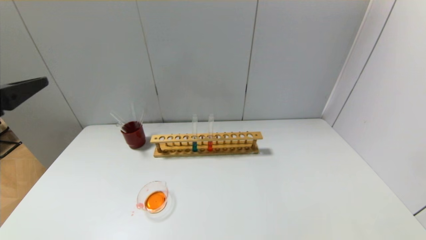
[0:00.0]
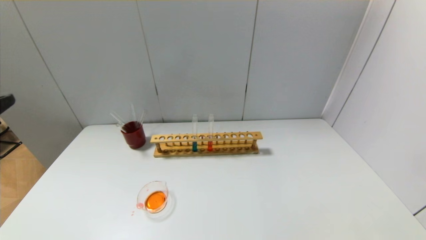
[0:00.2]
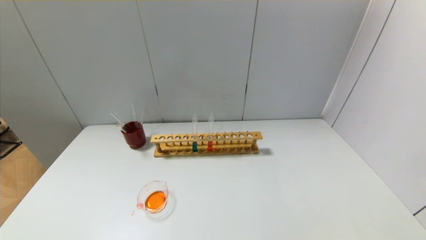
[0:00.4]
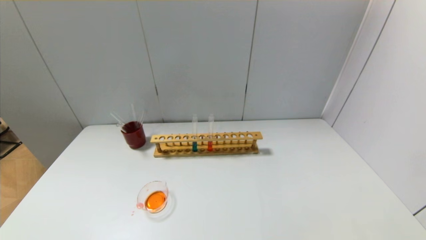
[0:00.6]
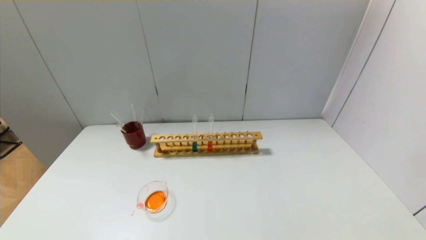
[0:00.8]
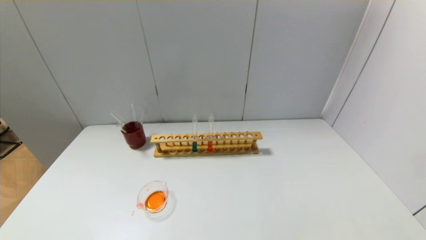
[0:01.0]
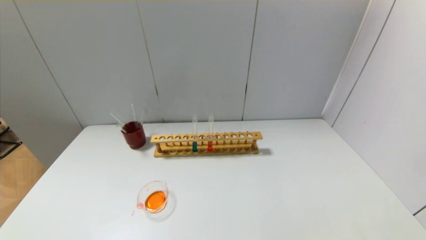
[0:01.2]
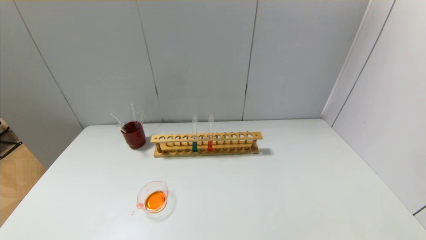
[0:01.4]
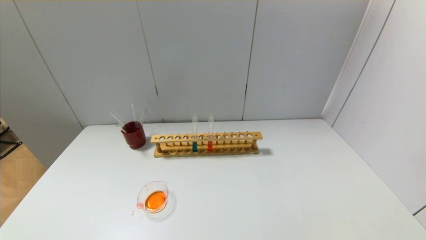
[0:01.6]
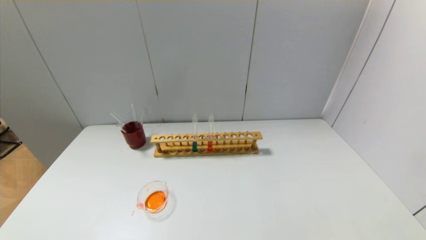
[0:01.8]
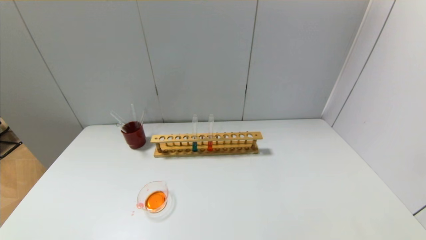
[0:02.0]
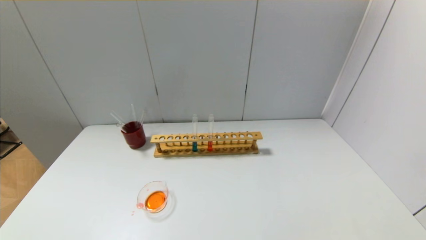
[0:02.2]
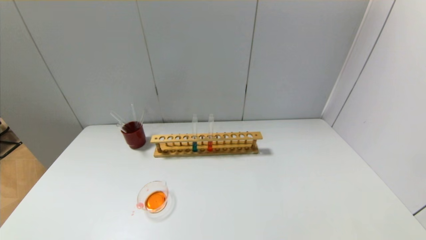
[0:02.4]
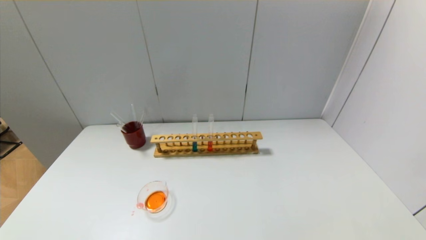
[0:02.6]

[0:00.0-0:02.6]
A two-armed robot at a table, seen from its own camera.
0:00.0 to 0:01.2: The left gripper shifts about 20 cm backward and downward.

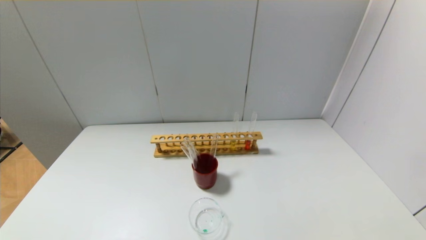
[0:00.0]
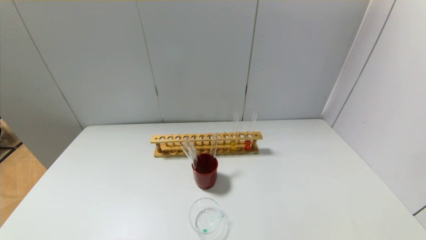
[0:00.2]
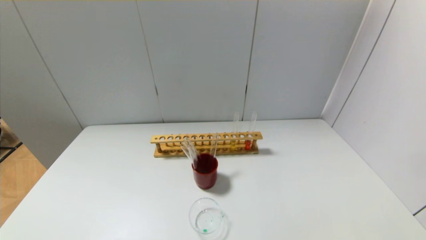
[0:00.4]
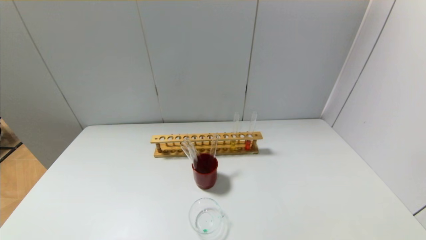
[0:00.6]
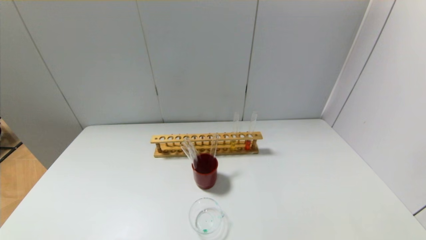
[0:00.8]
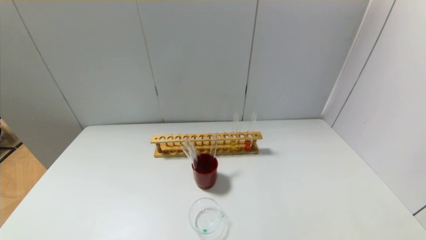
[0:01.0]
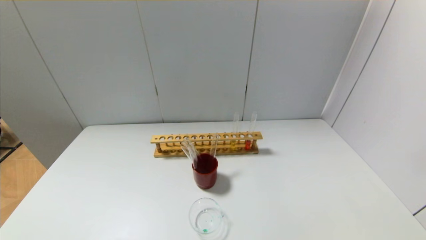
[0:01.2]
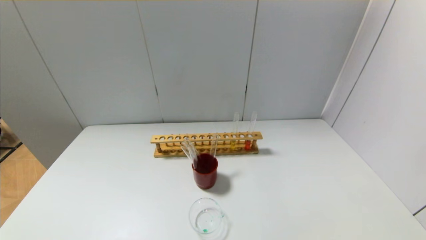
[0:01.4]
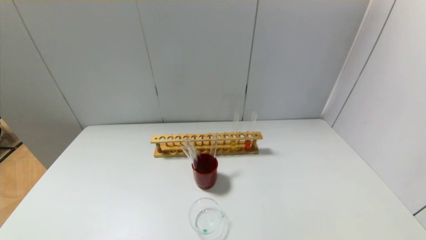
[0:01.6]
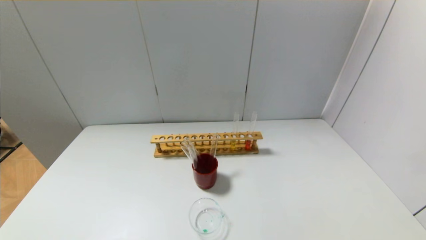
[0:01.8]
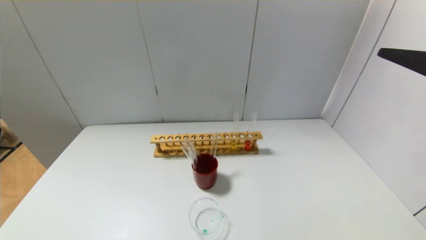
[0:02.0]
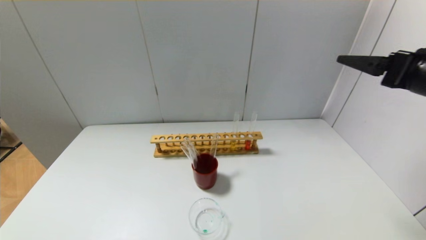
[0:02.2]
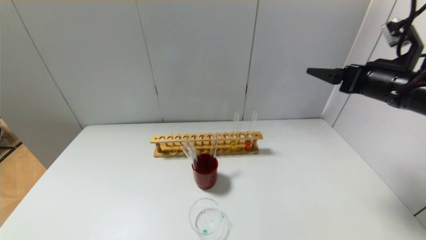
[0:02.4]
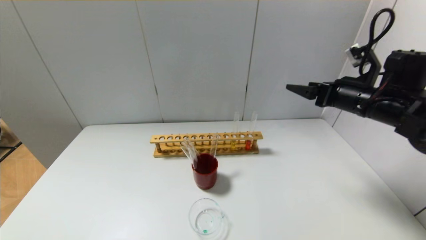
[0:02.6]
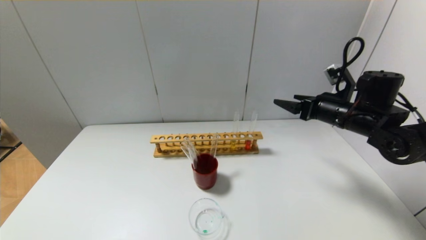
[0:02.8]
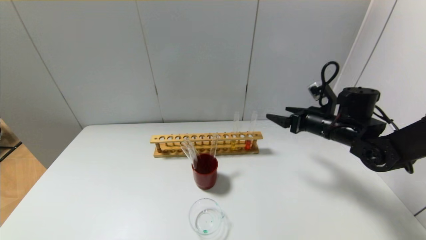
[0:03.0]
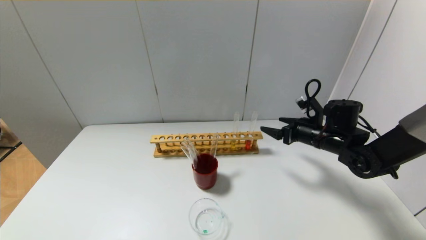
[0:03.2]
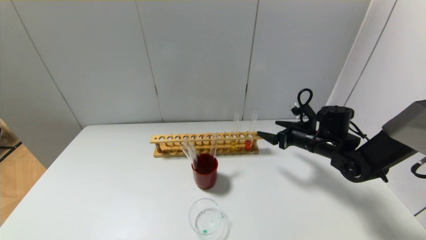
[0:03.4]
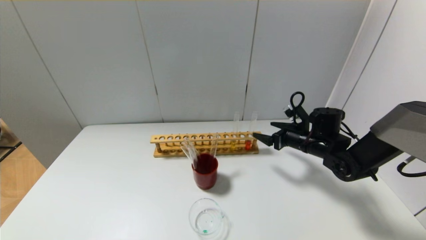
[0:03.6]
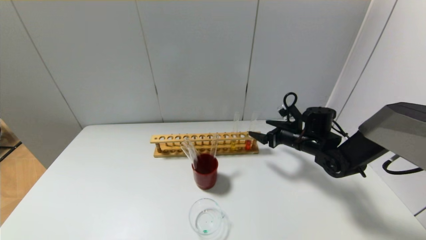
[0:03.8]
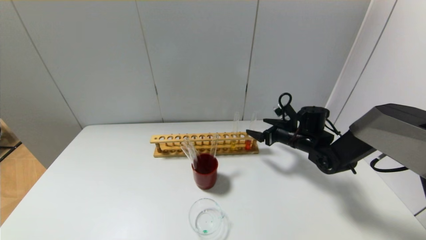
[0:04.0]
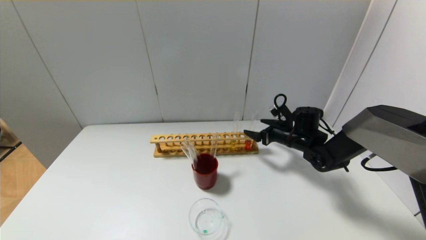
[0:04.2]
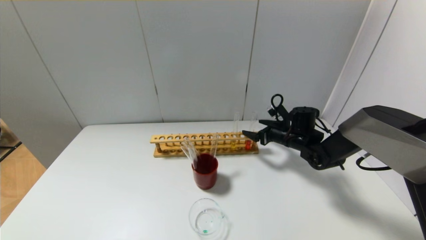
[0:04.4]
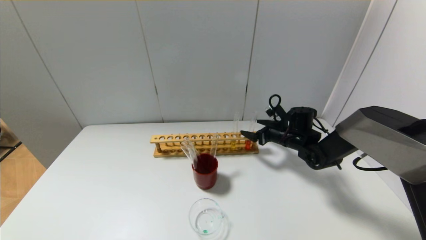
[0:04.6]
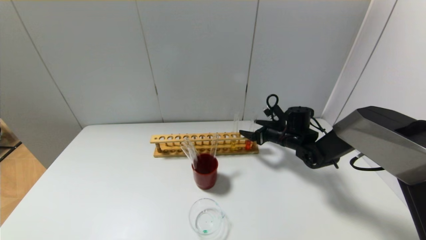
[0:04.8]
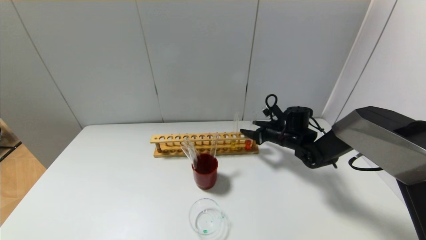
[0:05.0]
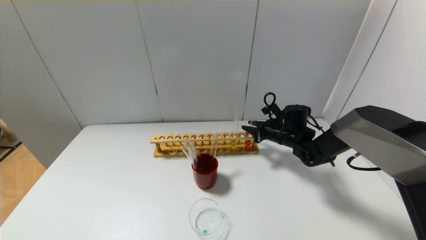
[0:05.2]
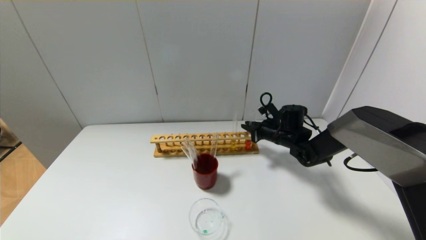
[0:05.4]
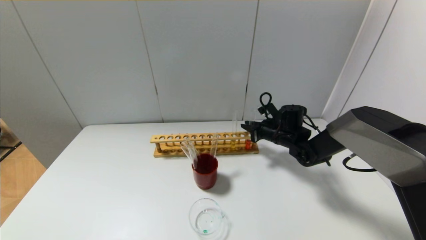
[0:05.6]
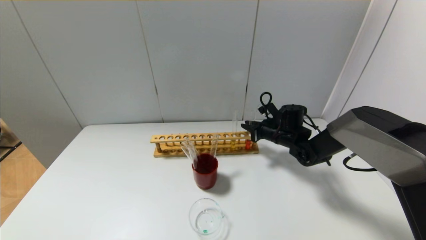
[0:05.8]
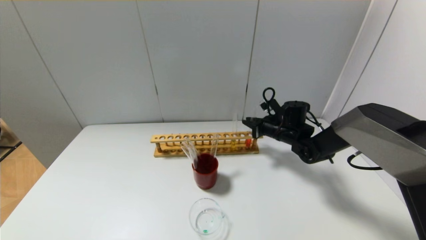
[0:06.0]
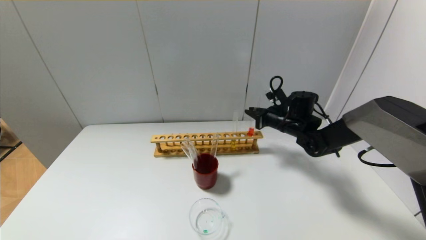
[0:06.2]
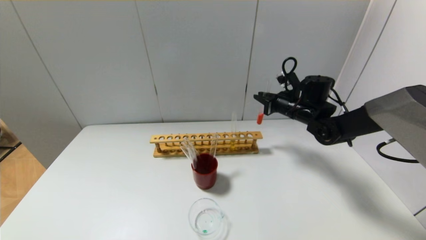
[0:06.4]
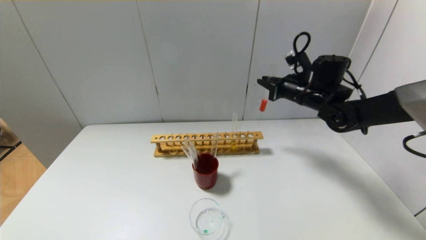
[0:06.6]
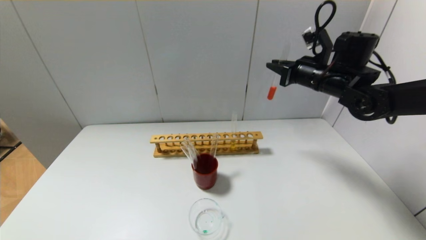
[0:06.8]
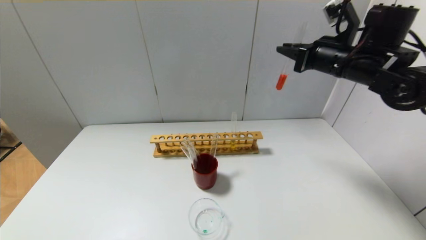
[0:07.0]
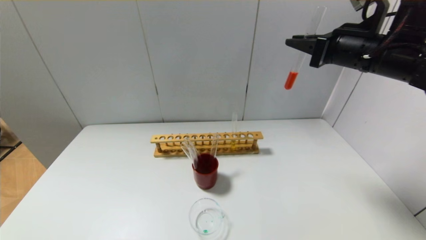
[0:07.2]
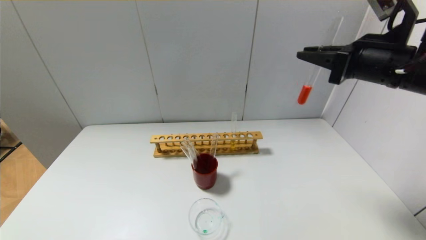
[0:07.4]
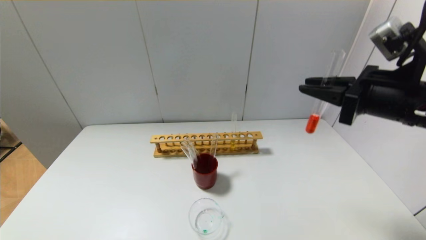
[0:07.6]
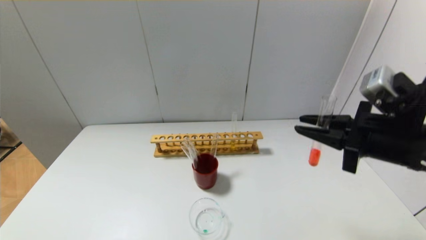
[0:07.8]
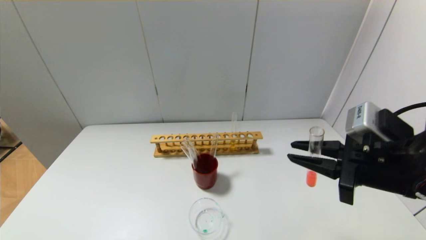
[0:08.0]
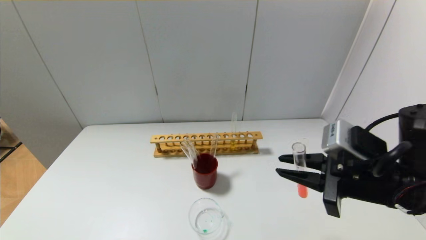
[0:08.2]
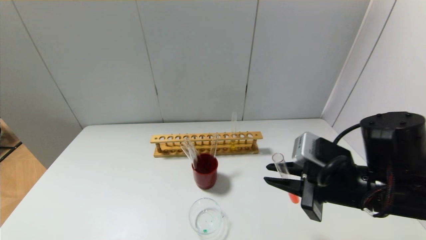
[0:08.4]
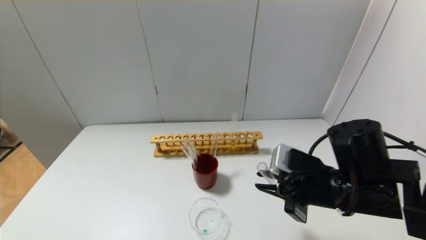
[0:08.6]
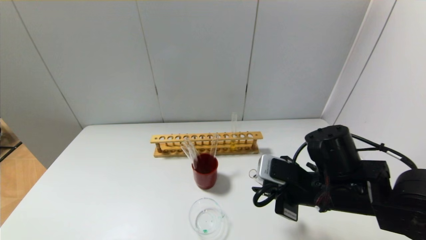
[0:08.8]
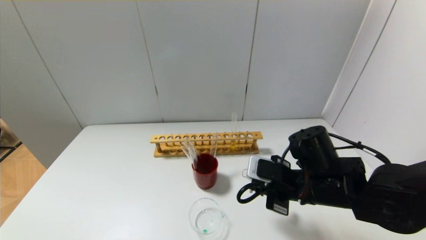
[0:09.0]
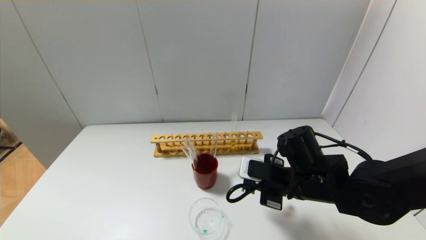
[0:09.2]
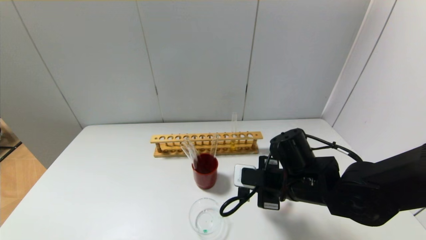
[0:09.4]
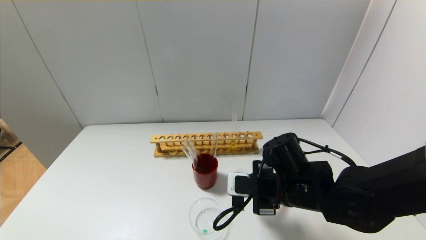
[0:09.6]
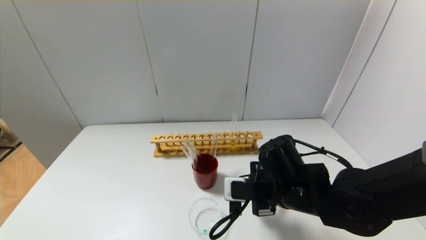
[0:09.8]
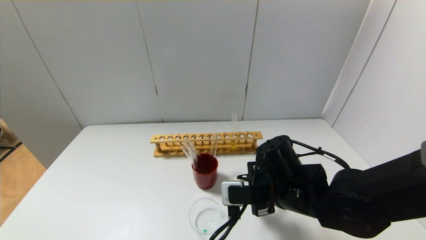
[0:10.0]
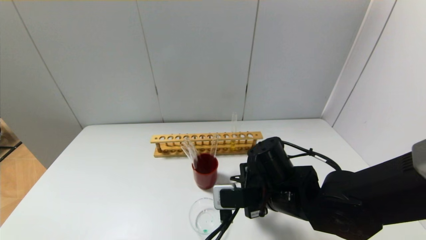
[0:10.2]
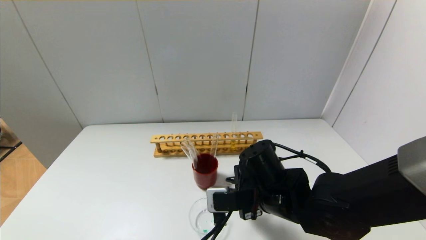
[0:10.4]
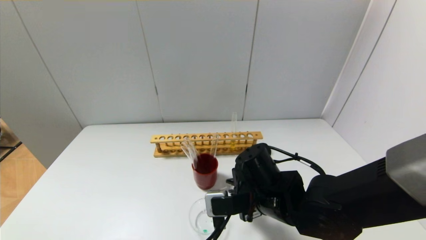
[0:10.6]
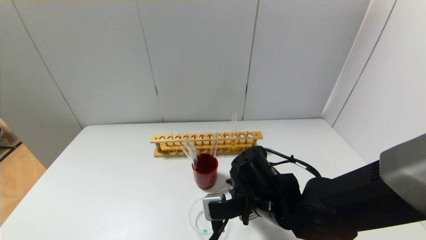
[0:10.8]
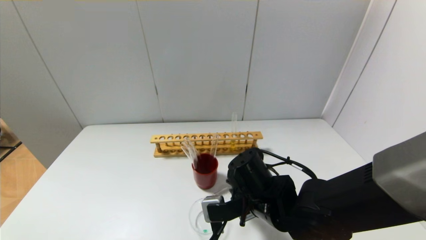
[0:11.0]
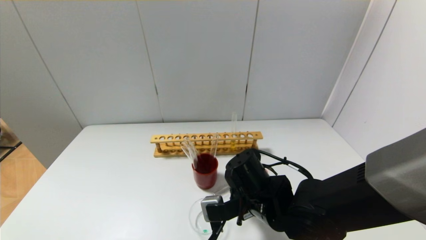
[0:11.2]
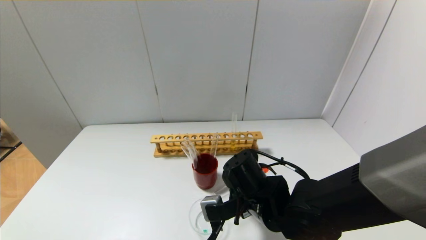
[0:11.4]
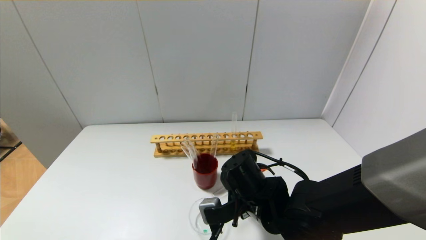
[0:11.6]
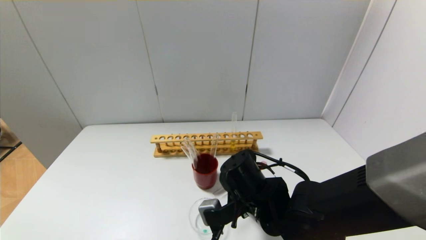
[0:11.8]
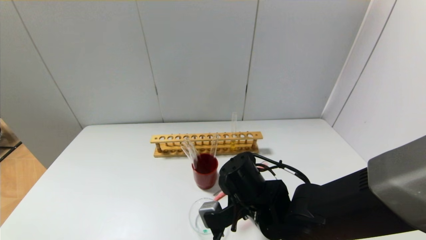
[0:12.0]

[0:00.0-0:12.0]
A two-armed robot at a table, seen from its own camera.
Step, 0:00.0 to 0:05.4: Grasp the red reagent with the right gripper.
0:01.6 to 0:03.0: The right gripper travels forward and downward by approximately 35 cm.
0:03.0 to 0:04.4: The right gripper goes some 10 cm downward and forward.
0:04.4 to 0:06.0: The right gripper closes up.
0:06.0 to 0:07.6: The right gripper moves backward and upward, approximately 30 cm.
0:07.6 to 0:09.0: The right gripper shifts about 20 cm downward and to the left.
0:09.0 to 0:10.4: The right gripper goes roughly 5 cm to the left.

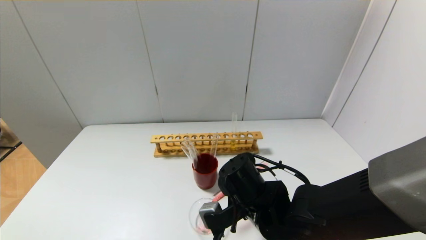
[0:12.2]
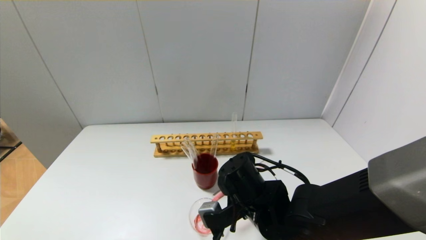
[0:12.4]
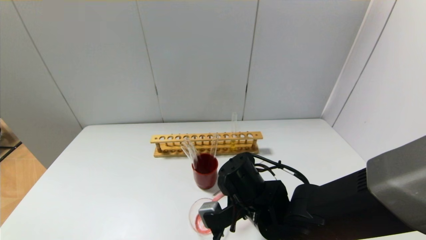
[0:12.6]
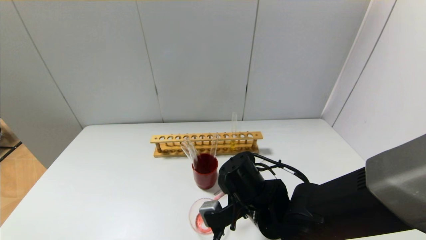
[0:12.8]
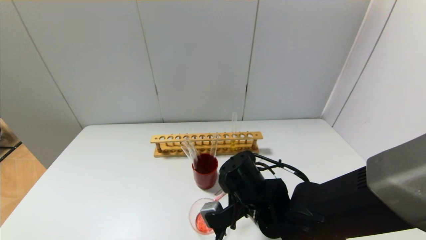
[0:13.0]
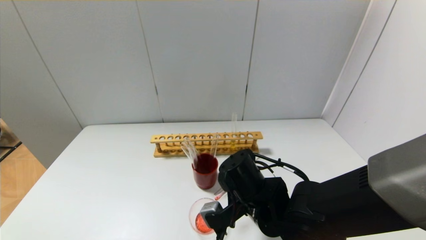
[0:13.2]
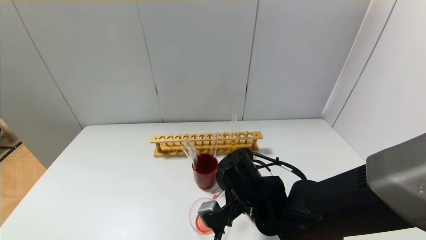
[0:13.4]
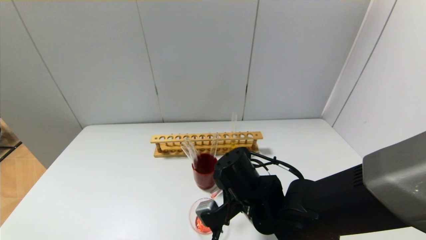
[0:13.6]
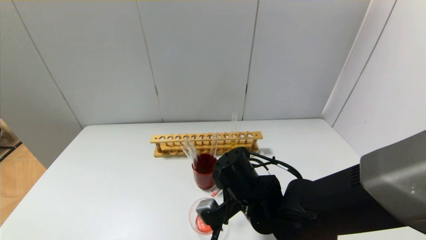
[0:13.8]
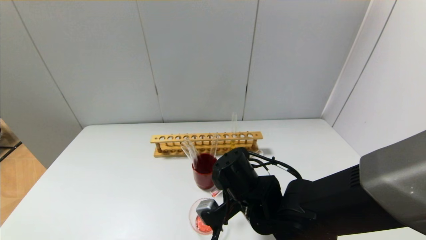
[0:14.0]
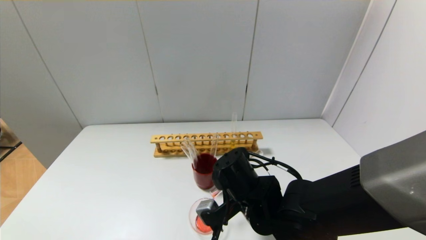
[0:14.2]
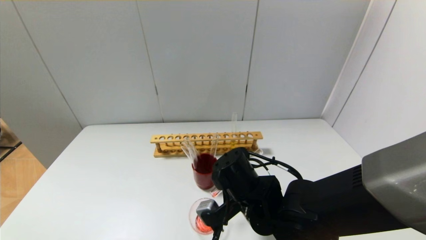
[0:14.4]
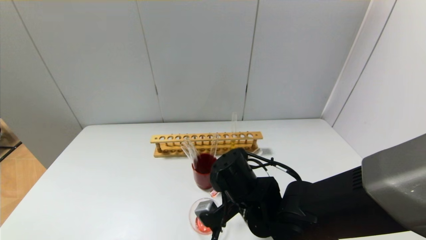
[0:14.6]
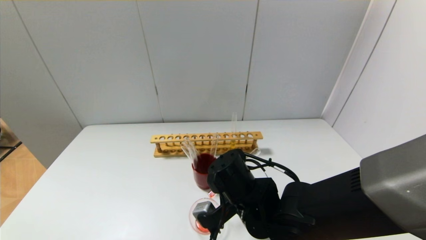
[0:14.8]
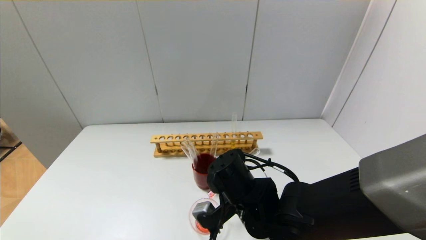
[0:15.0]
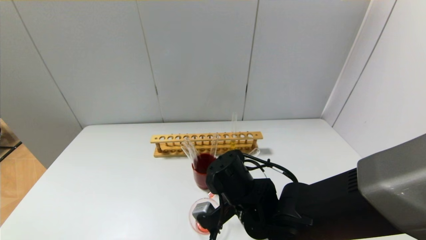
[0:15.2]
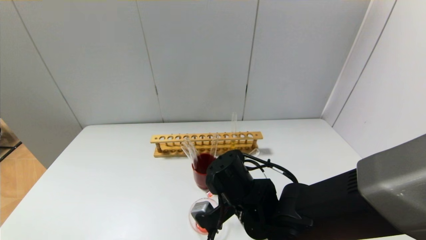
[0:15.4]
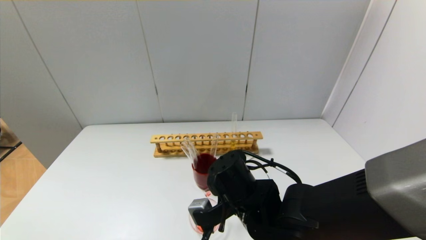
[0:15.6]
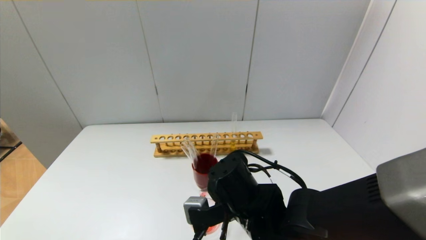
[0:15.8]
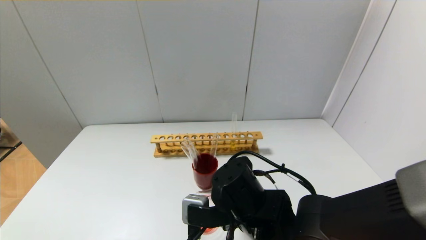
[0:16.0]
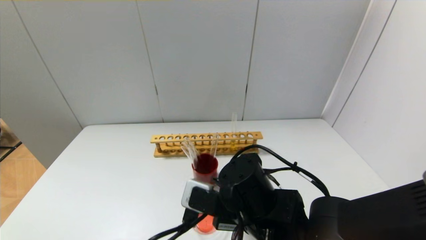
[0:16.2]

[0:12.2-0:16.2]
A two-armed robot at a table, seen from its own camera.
Step, 0:12.2 to 0:14.8: Pour the red reagent into the graduated cylinder with the right gripper.
0:12.2 to 0:13.6: The grippers stay close to where they were, moving slightly.
0:13.6 to 0:14.8: Both grippers stay put.
